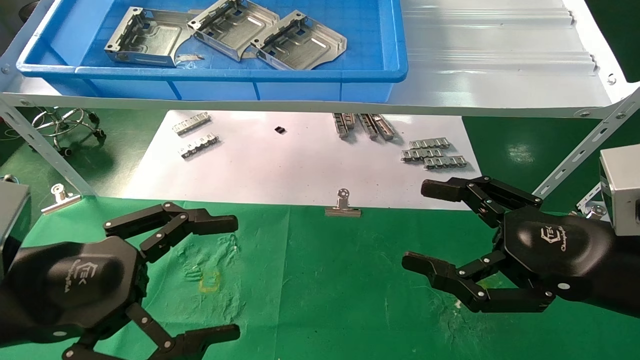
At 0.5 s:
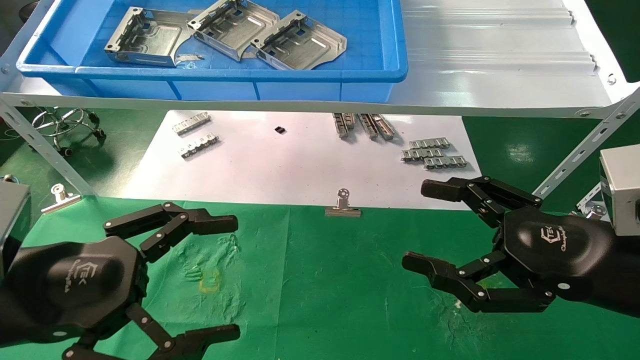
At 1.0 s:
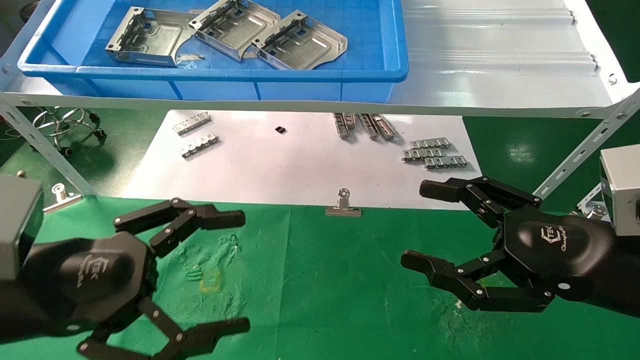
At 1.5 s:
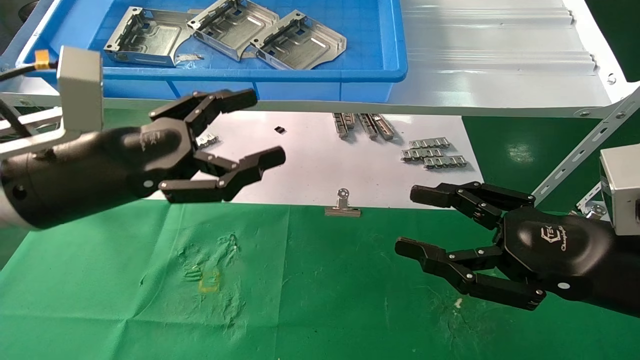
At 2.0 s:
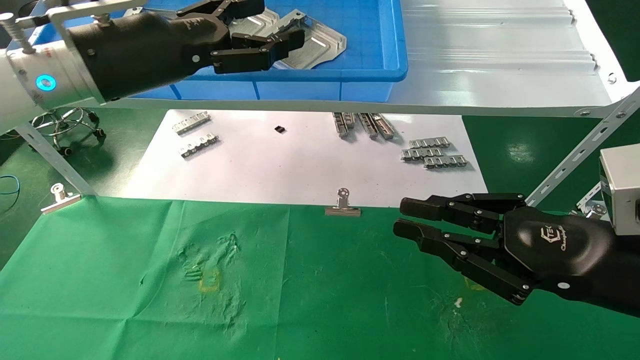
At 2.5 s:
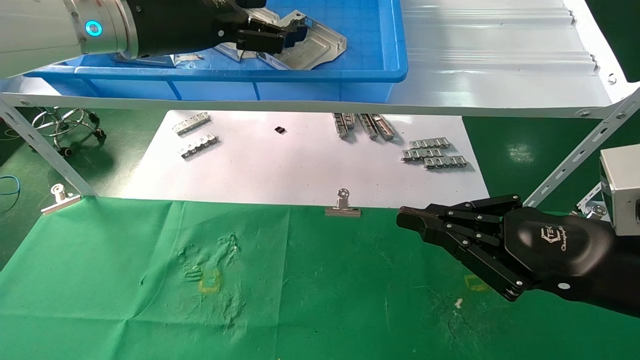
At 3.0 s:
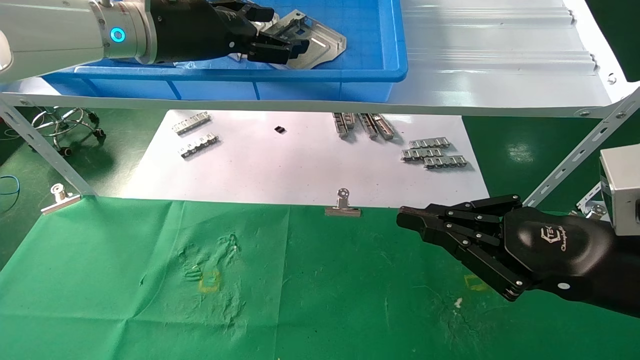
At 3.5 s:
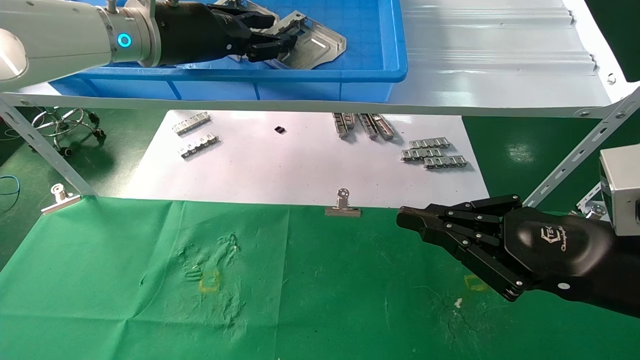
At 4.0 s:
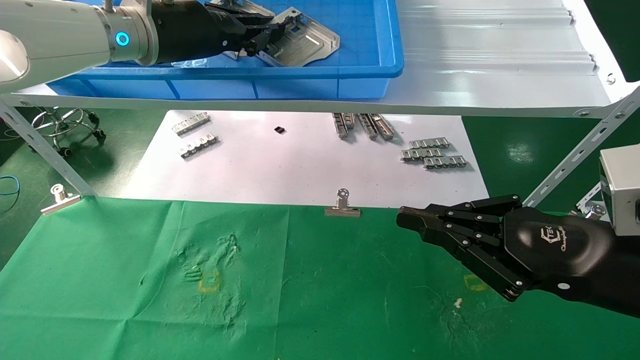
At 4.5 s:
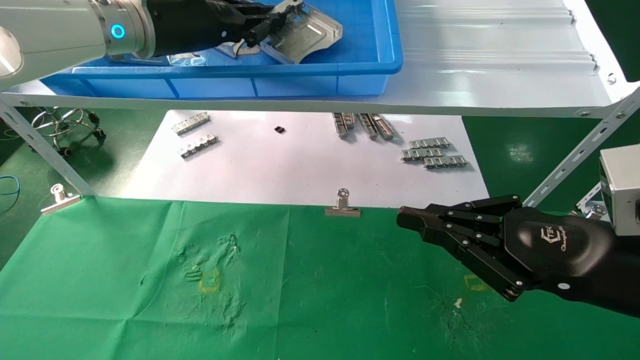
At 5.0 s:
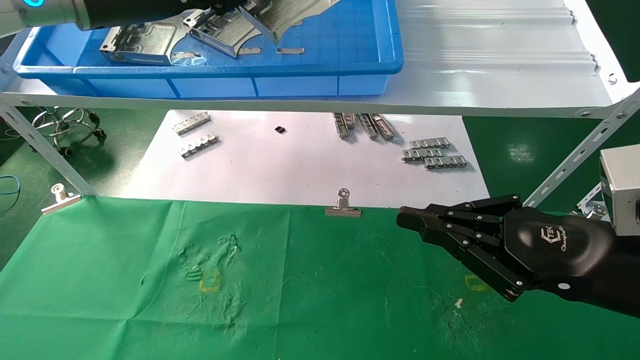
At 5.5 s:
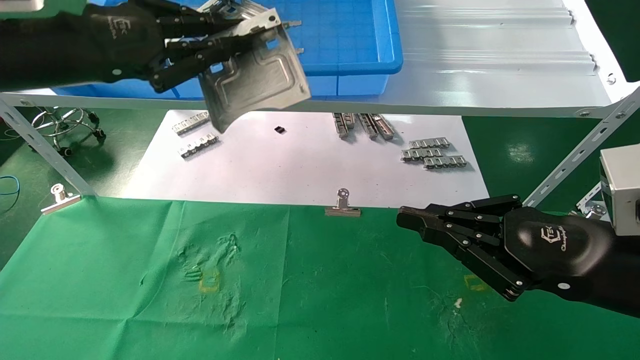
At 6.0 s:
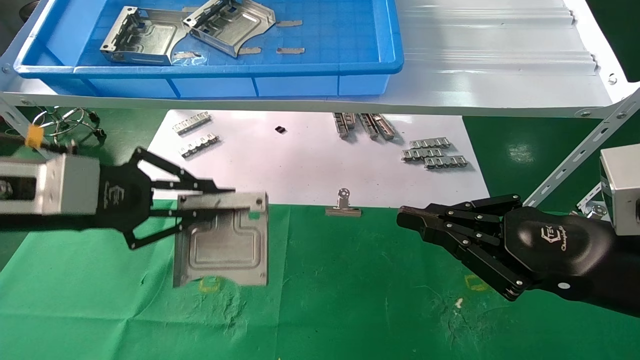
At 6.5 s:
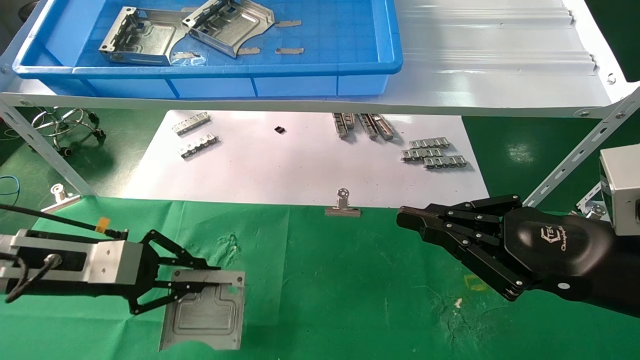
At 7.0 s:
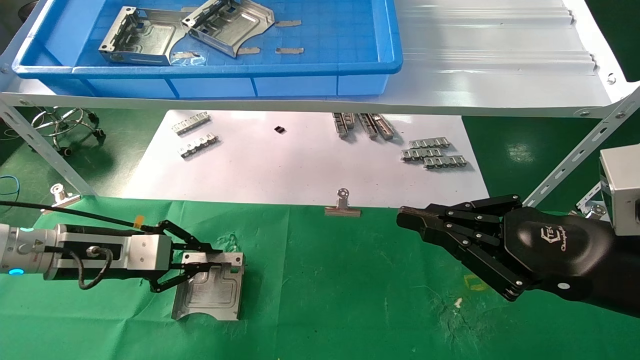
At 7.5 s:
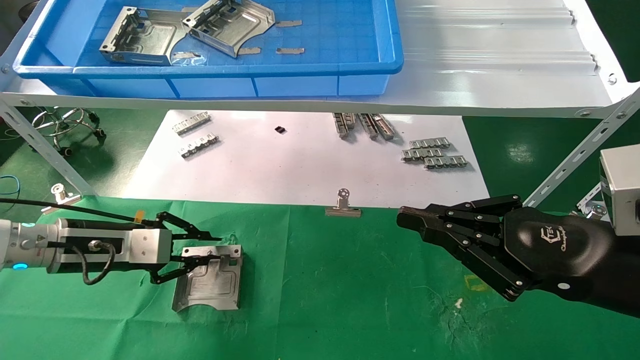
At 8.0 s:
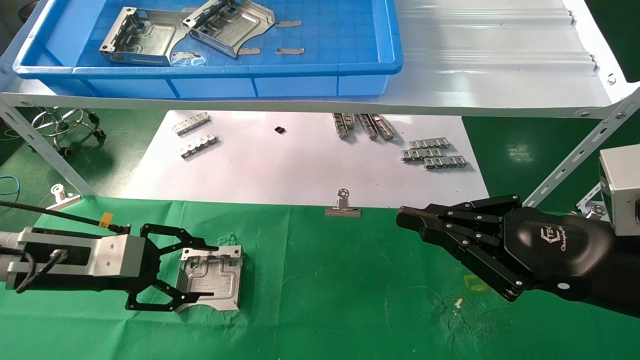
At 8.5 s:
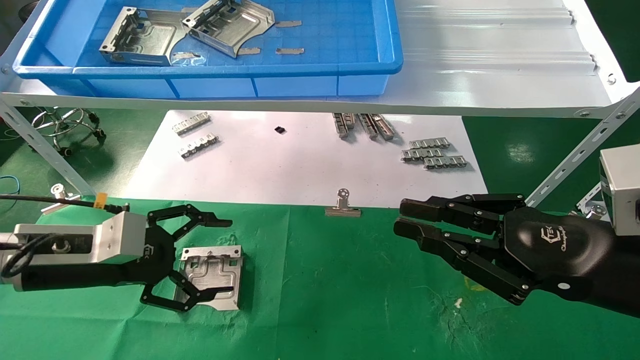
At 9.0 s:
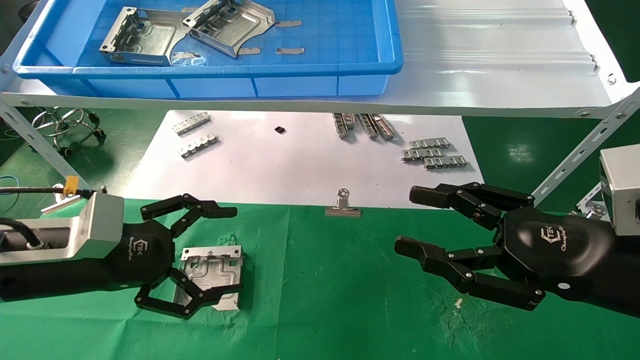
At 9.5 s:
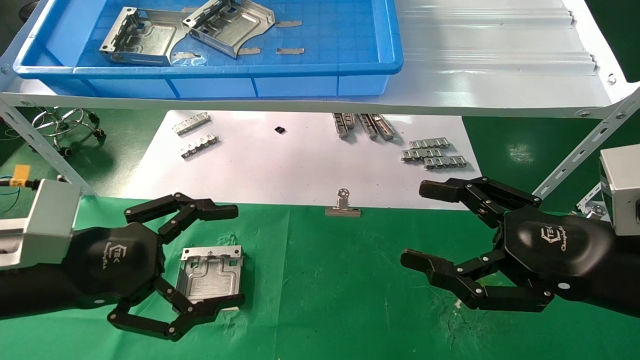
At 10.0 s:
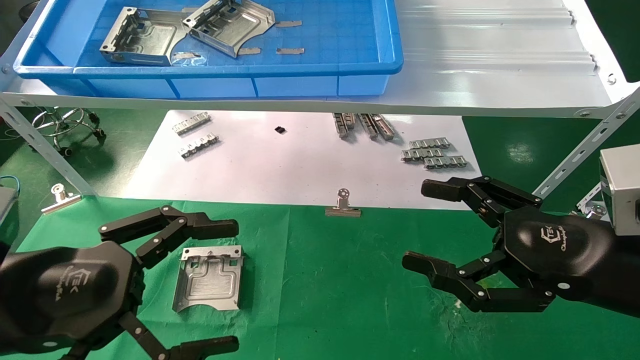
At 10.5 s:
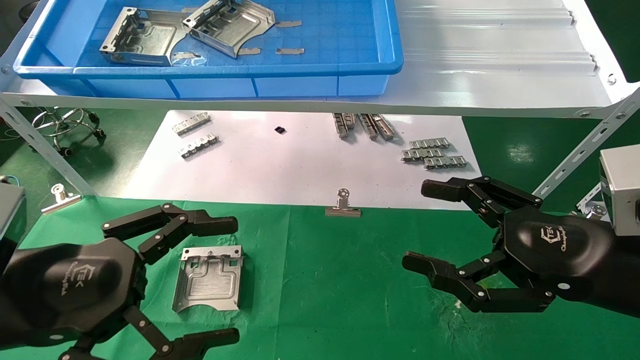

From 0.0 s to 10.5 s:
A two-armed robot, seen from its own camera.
Task of the whole recording: use the mechanical arm to pick up the parts and place them on the table.
Step, from 1.5 s to 3.5 s: Pick up the hard drive bracket from the feeding area.
Step, from 4.0 s to 7.0 s: Place the hard drive bracket into the box.
From 0.0 s to 2.0 s: The left gripper travels upward and forward by roughly 25 cm, while the right gripper closes its fingers.
From 2.0 s to 4.0 s: The left gripper moves forward, about 5 cm, and closes up.
From 4.0 s to 6.5 s: The left gripper goes some 30 cm downward, to the left and backward.
From 6.5 s to 8.5 s: The left gripper opens.
From 8.5 s to 10.5 s: The left gripper moves backward, some 15 cm. The right gripper opens its fingers.
